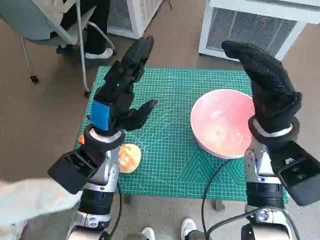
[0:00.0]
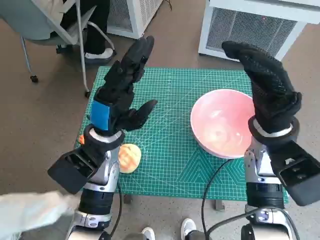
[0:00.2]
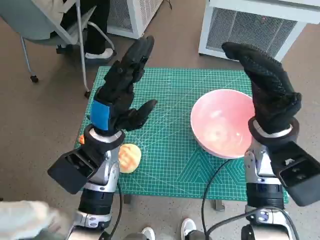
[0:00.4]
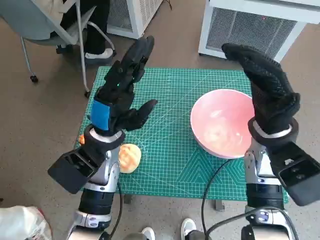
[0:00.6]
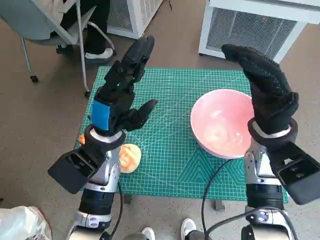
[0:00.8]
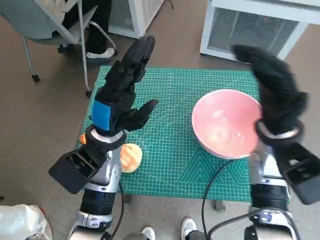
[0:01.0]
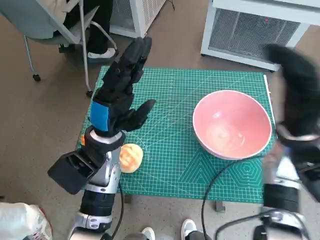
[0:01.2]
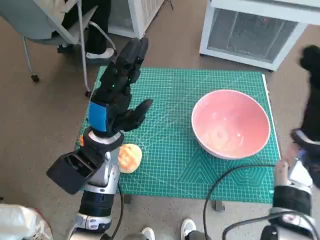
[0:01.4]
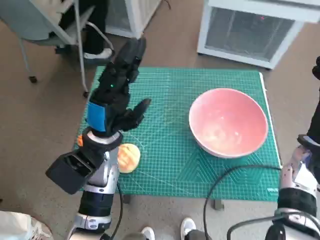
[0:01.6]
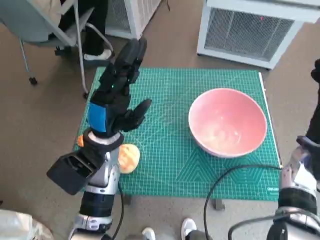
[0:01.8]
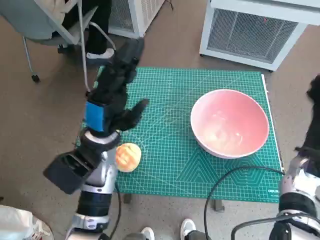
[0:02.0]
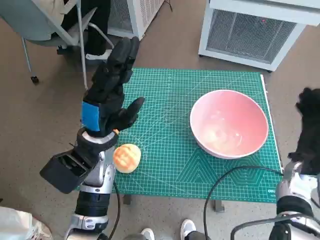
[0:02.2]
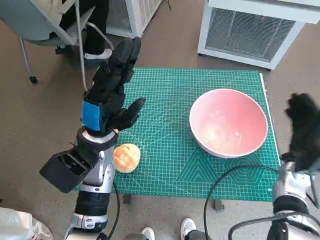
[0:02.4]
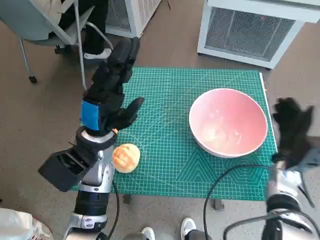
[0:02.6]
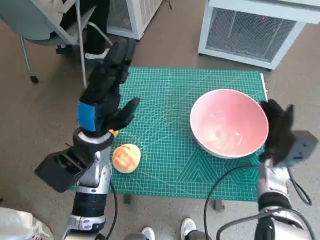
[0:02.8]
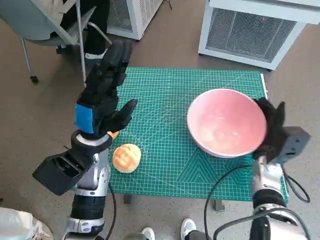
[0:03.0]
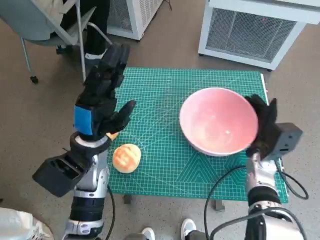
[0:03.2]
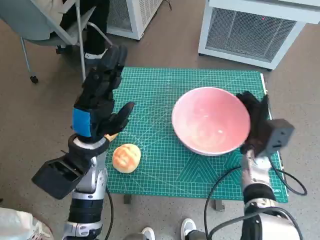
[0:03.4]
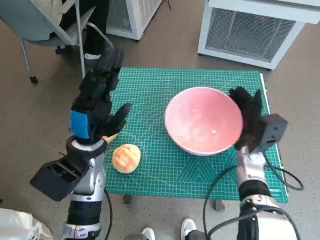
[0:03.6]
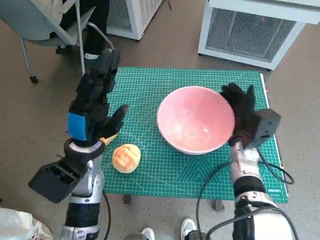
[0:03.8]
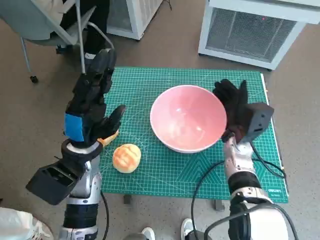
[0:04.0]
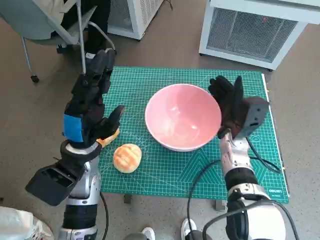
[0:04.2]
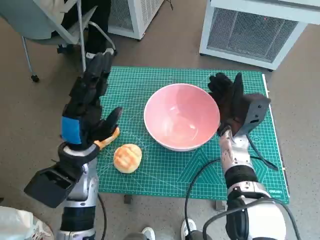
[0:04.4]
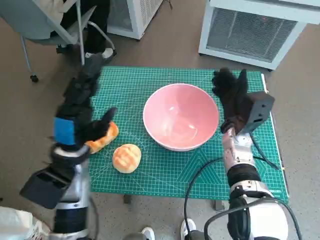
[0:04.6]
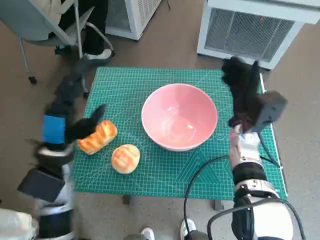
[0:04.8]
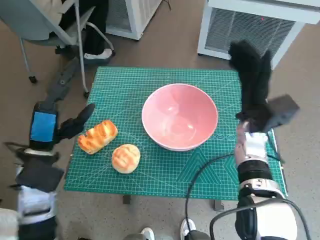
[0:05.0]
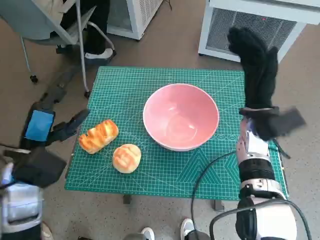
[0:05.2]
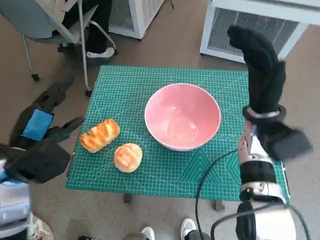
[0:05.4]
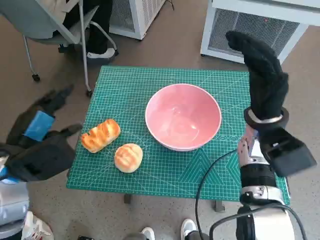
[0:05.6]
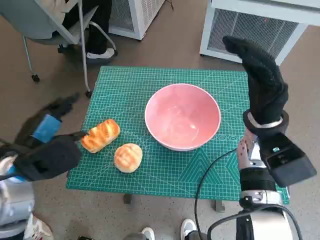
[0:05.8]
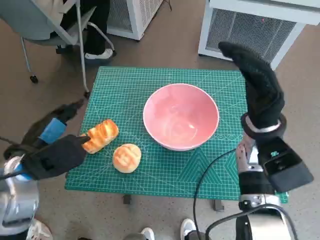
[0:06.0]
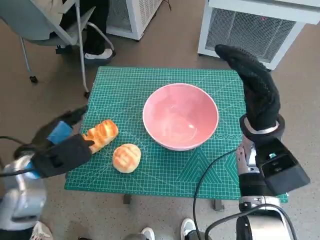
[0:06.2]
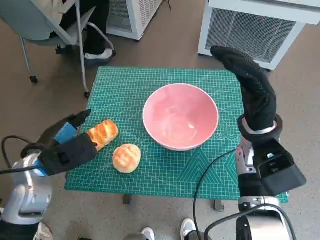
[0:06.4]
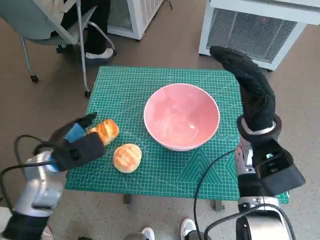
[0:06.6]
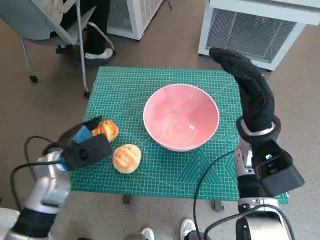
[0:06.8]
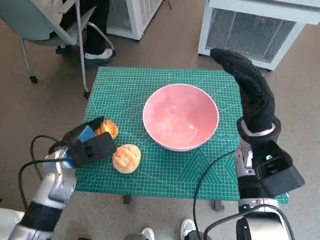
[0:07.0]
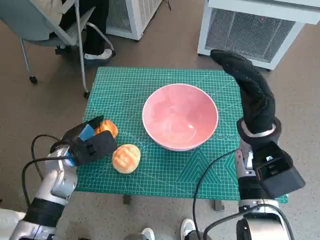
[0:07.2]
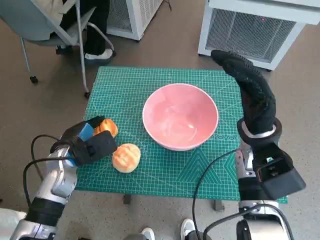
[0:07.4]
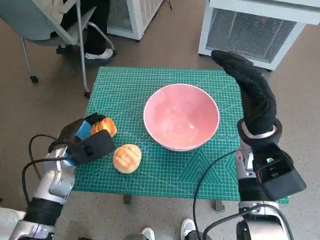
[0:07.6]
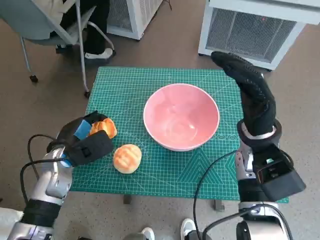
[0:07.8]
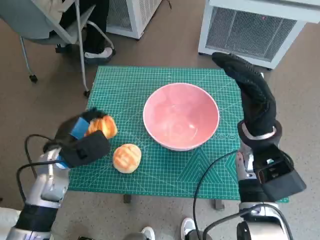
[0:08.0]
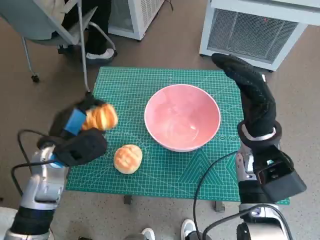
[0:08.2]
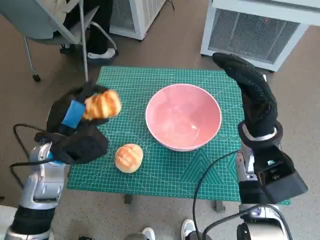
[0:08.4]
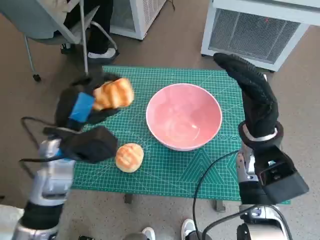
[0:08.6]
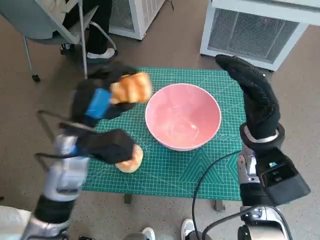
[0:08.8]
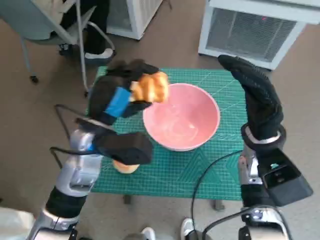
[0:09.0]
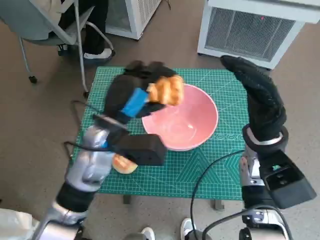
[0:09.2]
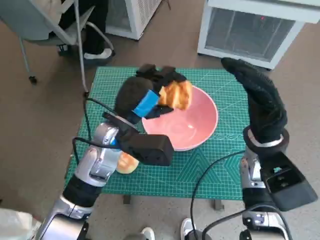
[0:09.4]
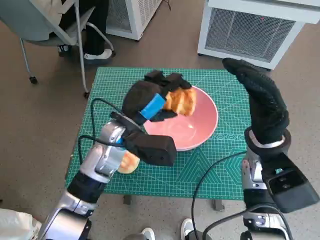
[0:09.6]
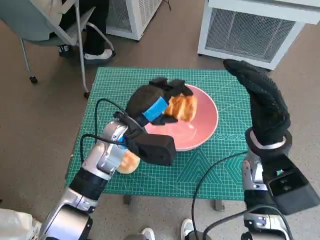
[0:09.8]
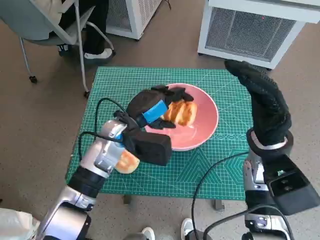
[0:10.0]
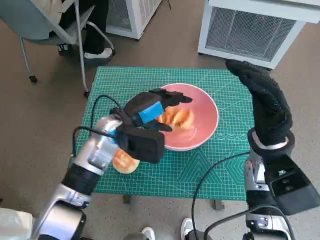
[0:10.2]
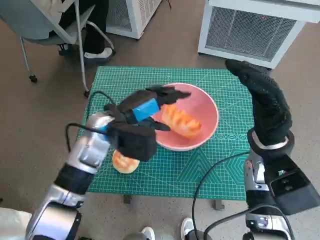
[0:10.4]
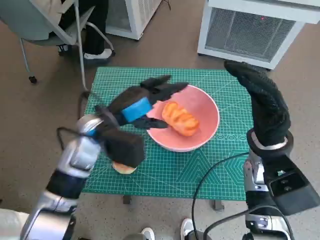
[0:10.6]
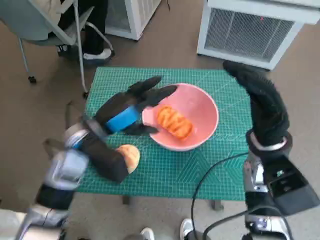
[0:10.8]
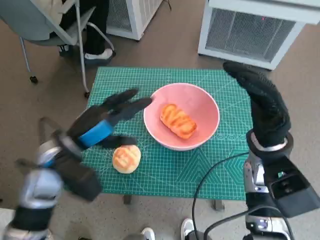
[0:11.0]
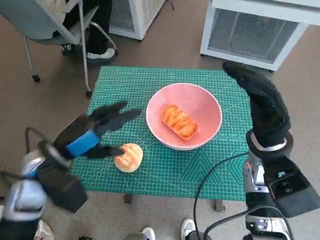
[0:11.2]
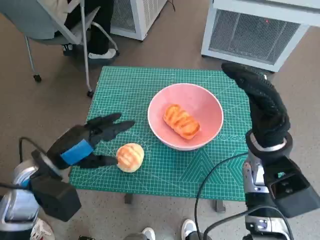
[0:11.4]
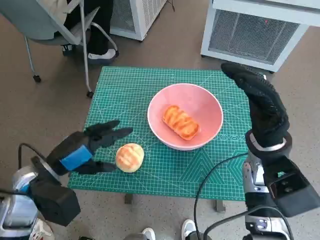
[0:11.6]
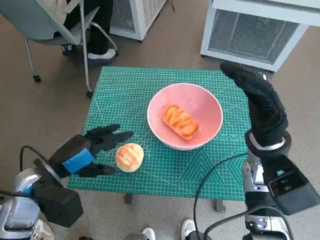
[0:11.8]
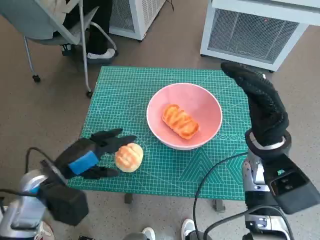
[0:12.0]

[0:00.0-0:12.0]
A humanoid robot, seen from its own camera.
Task of the whole recording: Push the bowl to the center of the table and put the bread into the bowl.
Step, 0:00.0 to 0:04.6: Move the pink bowl to the center of table with right hand.
Step, 0:04.8 to 0:07.4: Grasp the long bread with left hand.
Step, 0:07.6 to 0:10.4: Place the long bread in pink bowl with left hand.
0:01.6 to 0:03.0: The right hand goes roughly 10 cm downward.
0:03.0 to 0:04.4: The right hand shifts some 10 cm to the left.
0:04.4 to 0:06.0: The left hand travels to the left by approximately 10 cm. Meanwhile the right hand travels upward by roughly 10 cm.
0:06.0 to 0:07.6: The left hand shifts some 10 cm downward and forward.
0:07.6 to 0:09.0: The left hand moves upward and to the right, some 15 cm.
0:10.4 to 0:12.0: The left hand heads to the left and backward, covering approximately 15 cm.

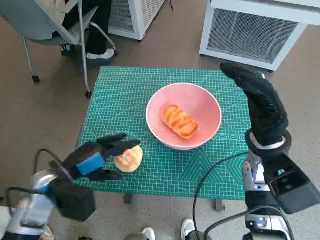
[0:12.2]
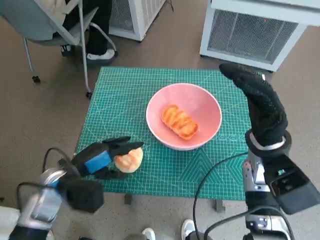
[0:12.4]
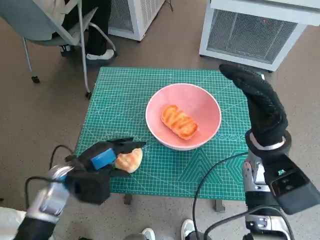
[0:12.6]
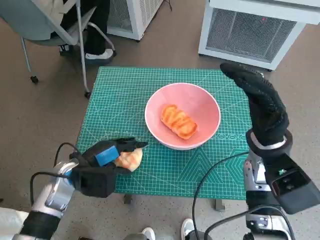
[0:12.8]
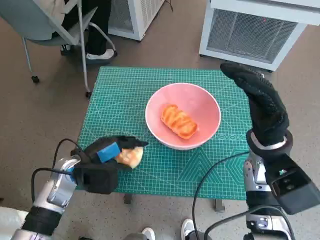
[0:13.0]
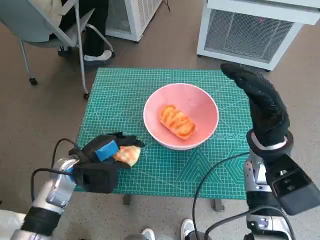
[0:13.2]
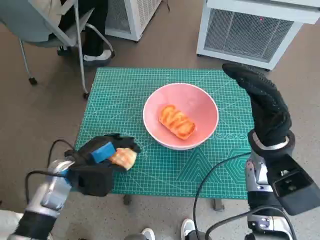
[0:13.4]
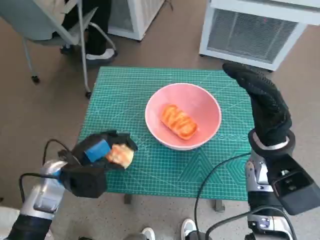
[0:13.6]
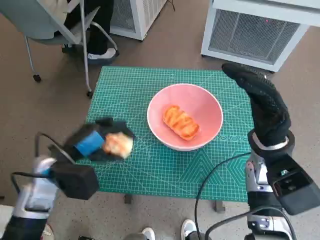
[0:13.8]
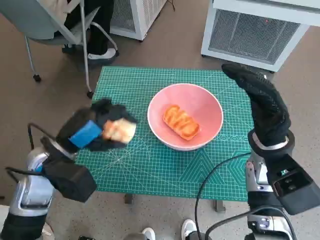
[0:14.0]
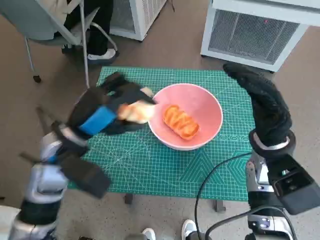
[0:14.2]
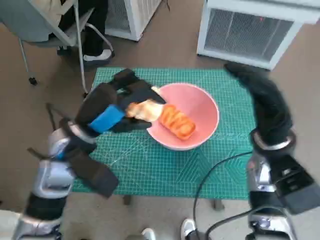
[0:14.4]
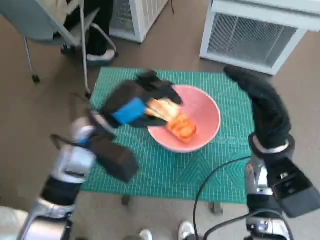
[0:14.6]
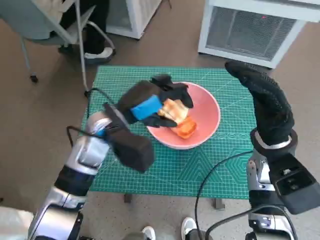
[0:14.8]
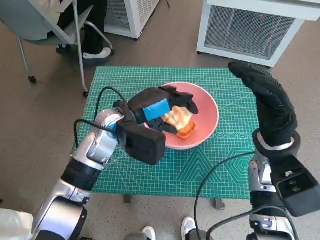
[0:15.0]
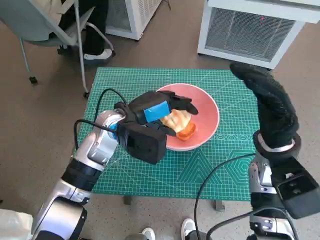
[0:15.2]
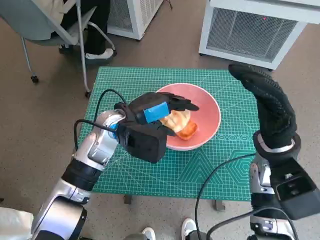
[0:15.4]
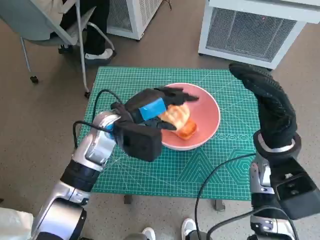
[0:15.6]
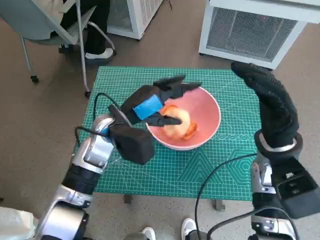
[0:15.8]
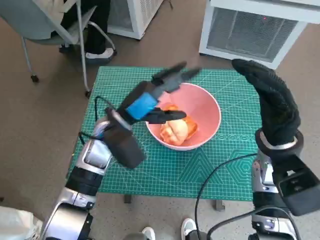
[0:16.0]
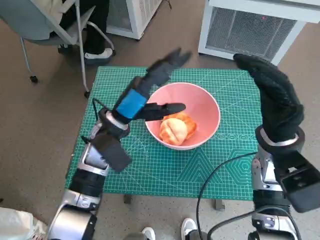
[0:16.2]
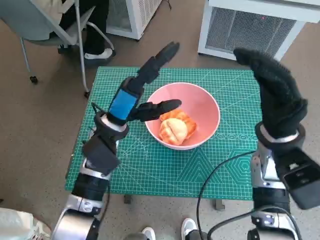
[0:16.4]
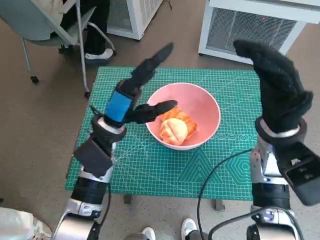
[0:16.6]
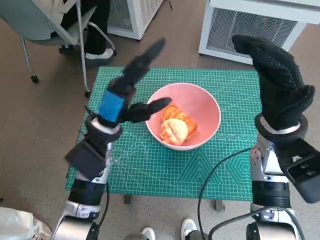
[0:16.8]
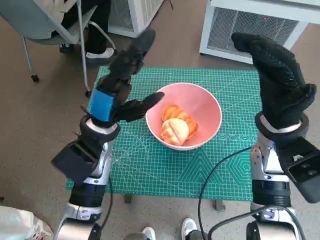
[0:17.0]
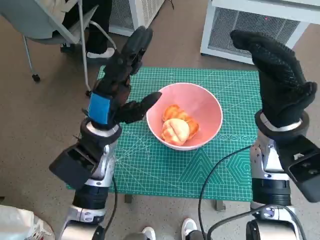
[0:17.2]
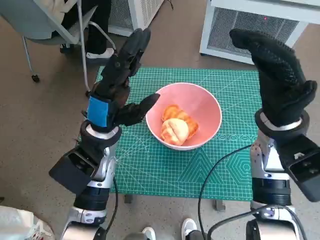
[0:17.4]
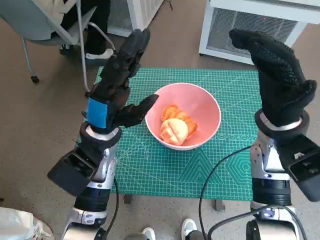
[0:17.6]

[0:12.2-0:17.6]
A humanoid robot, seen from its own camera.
Task of the whole recording: Push the bowl to the center of the table and put the bread into the bowl.
Step, 0:13.4 to 0:15.8: Place the round bread in pink bowl with left hand.
0:12.2 to 0:13.6: The hands move only a little.
0:13.6 to 0:15.0: The left hand goes some 15 cm to the right, upward and forward.

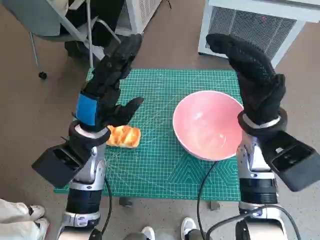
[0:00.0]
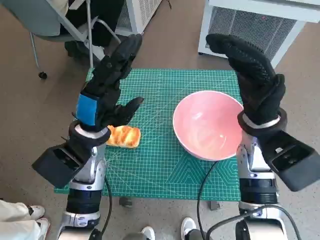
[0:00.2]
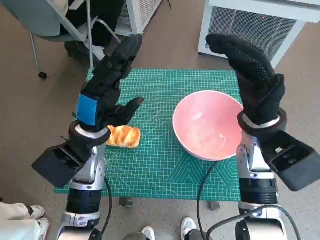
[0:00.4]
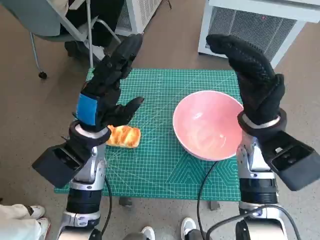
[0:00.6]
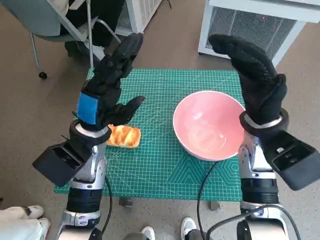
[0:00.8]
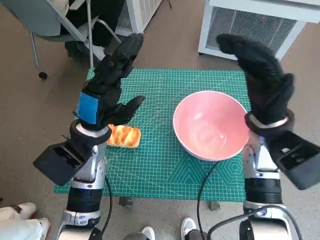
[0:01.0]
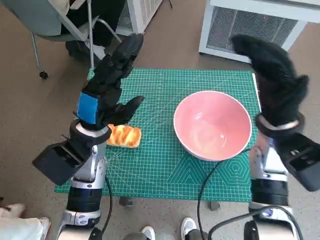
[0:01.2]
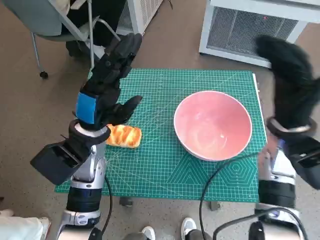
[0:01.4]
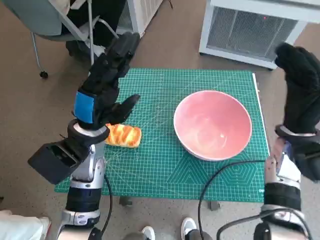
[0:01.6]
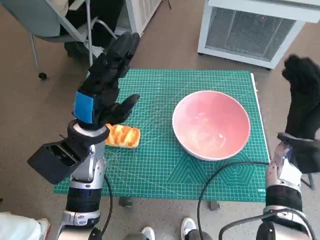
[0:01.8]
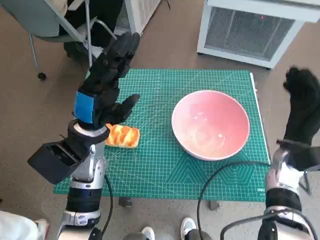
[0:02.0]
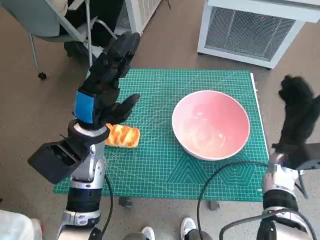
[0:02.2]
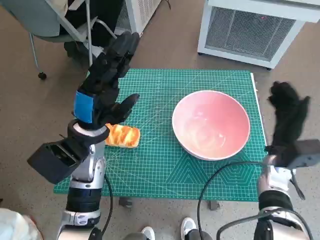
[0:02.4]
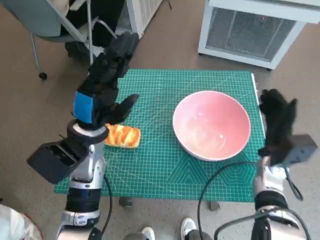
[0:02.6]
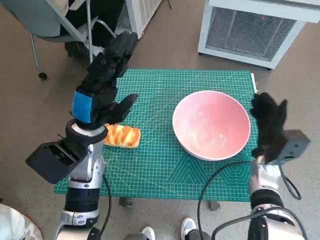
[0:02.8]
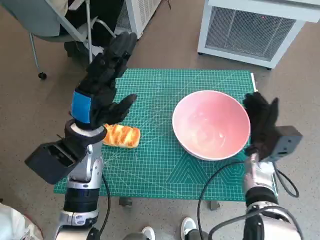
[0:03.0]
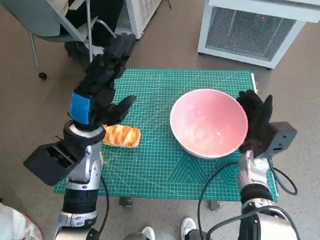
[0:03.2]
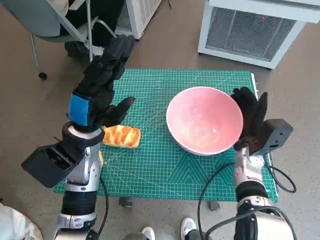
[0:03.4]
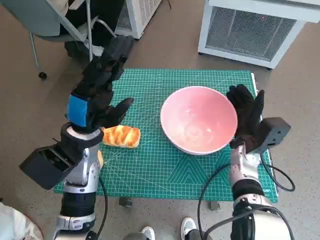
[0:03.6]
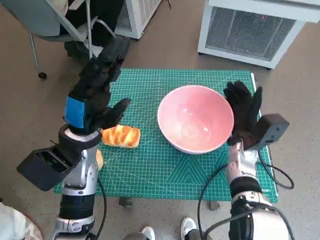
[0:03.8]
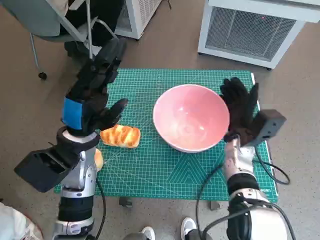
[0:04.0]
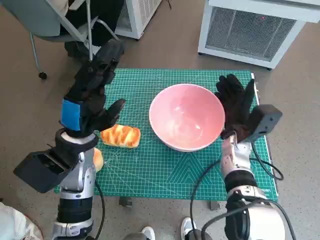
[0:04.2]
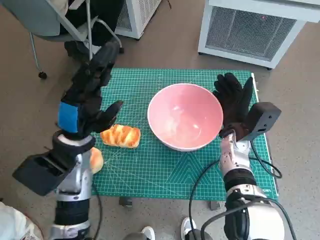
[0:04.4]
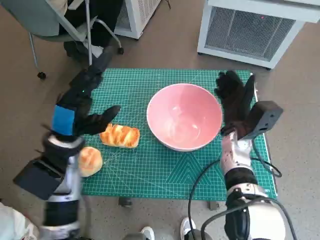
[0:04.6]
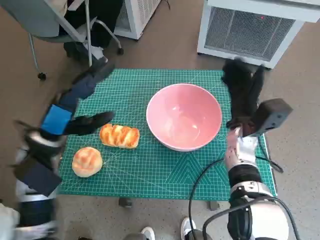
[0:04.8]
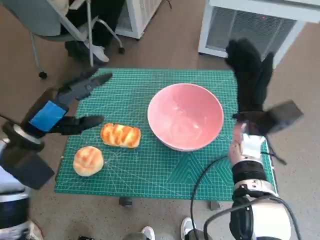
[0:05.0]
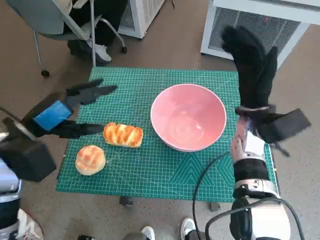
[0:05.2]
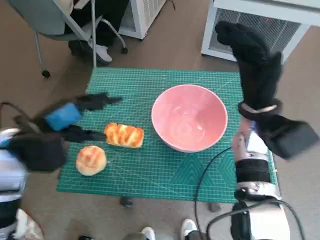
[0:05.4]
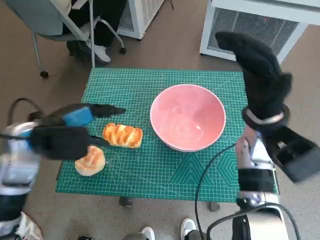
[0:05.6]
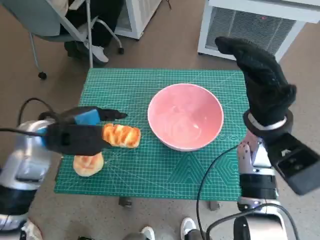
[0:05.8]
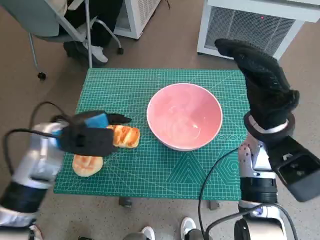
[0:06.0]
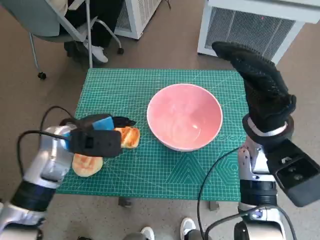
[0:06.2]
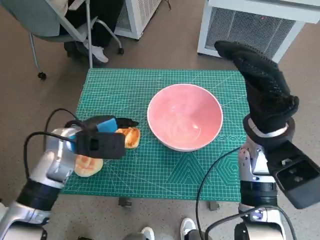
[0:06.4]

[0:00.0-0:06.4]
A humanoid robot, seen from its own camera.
Task of the whole recording: Push the bowl to the center of the table and put the bread into the bowl.
Step, 0:00.0 to 0:04.6: Move the pink bowl to the center of table with right hand.
0:01.6 to 0:03.2: The right hand shifts about 10 cm downward.
0:03.2 to 0:04.8: The left hand shifts roughly 5 cm to the left; the right hand goes about 5 cm upward.
0:04.8 to 0:06.4: The left hand moves about 5 cm; the right hand heads upward, covering approximately 10 cm.
